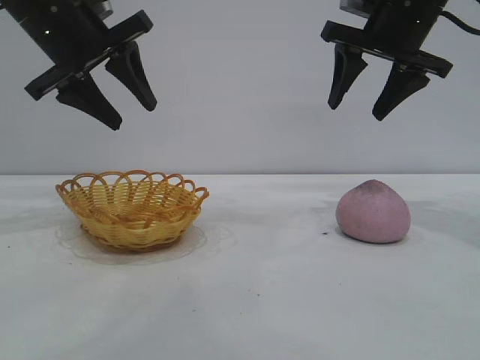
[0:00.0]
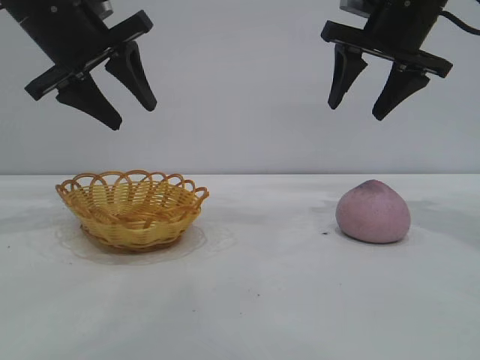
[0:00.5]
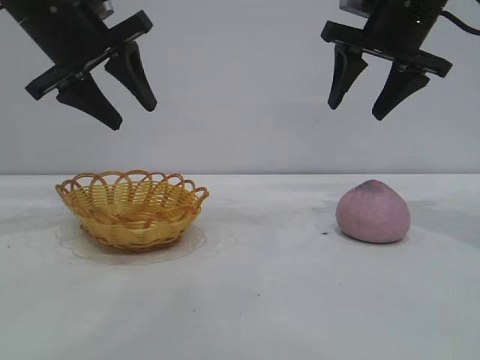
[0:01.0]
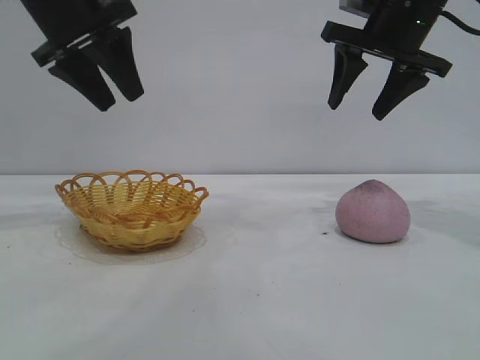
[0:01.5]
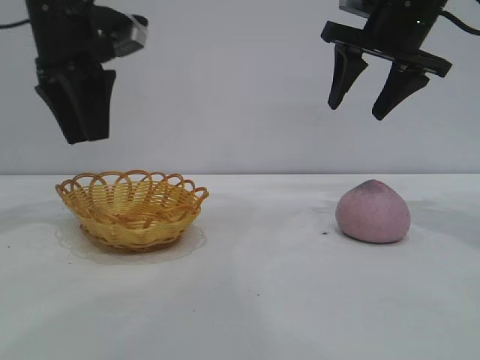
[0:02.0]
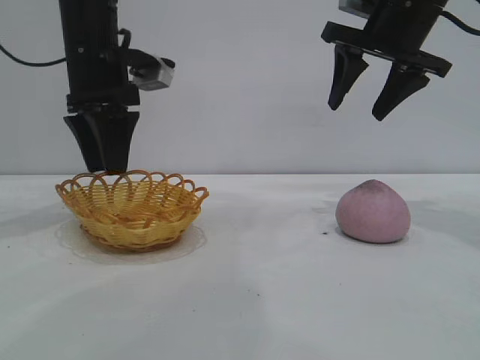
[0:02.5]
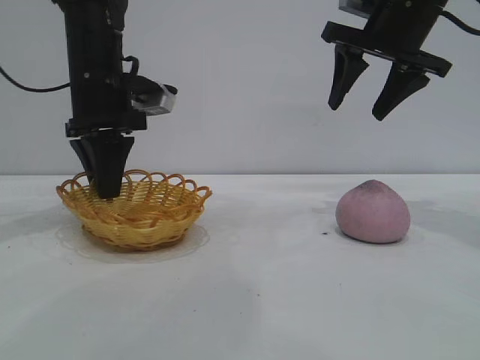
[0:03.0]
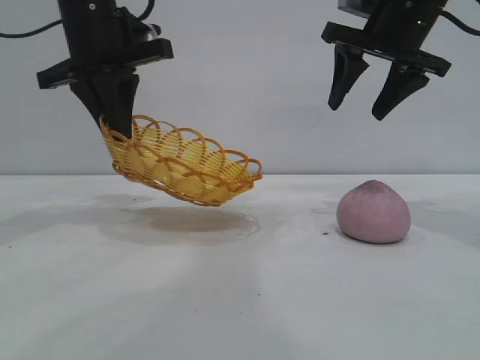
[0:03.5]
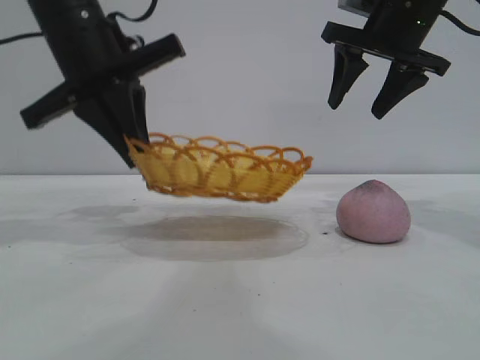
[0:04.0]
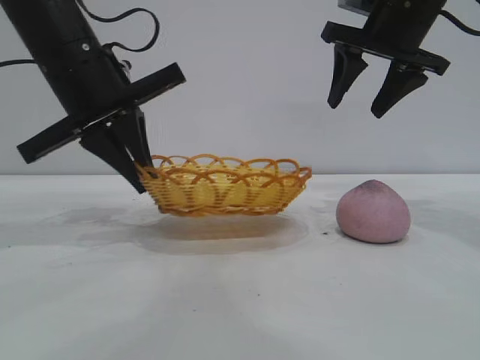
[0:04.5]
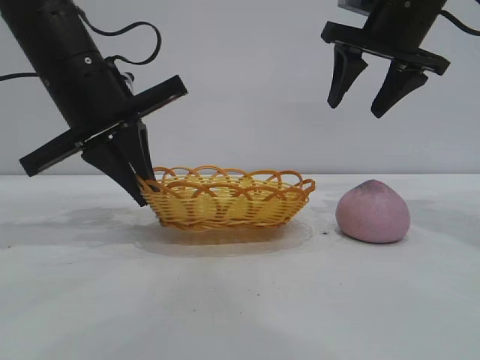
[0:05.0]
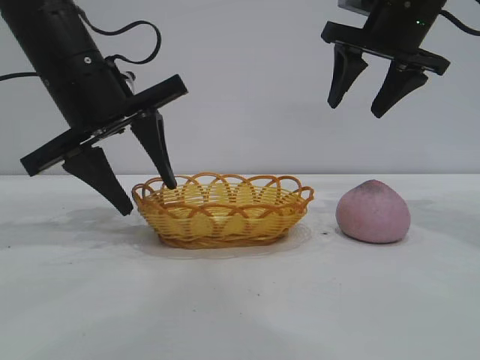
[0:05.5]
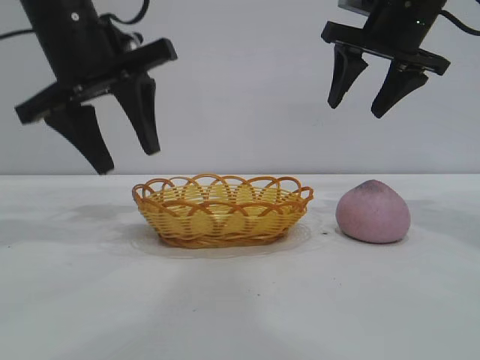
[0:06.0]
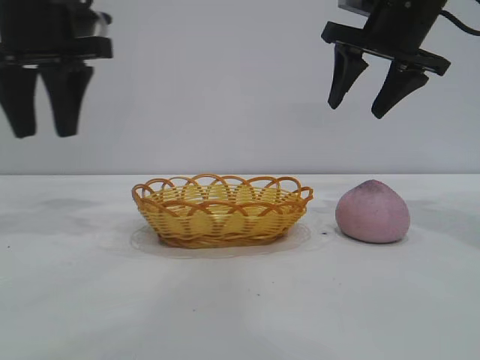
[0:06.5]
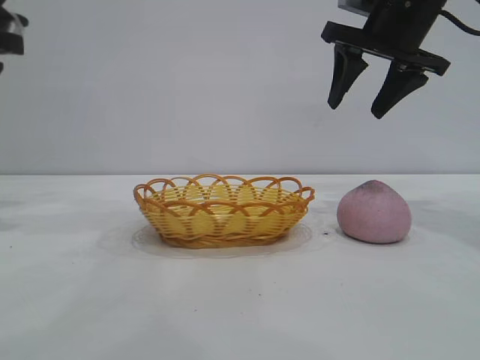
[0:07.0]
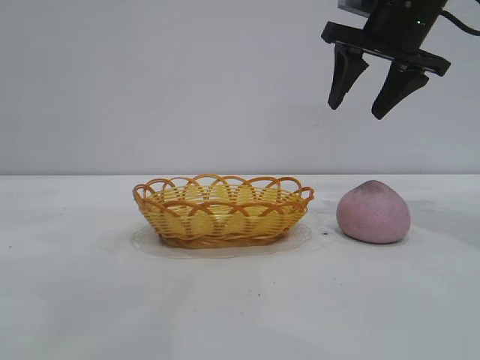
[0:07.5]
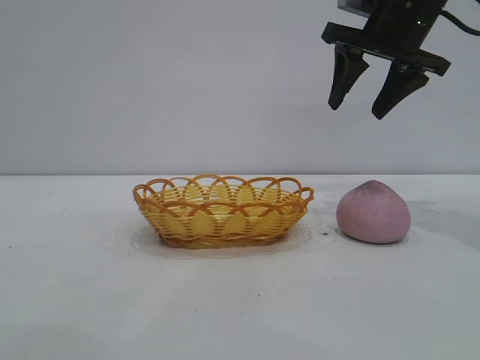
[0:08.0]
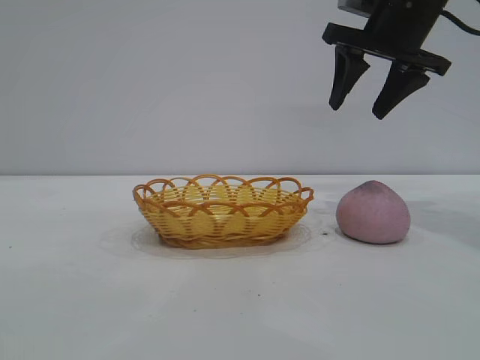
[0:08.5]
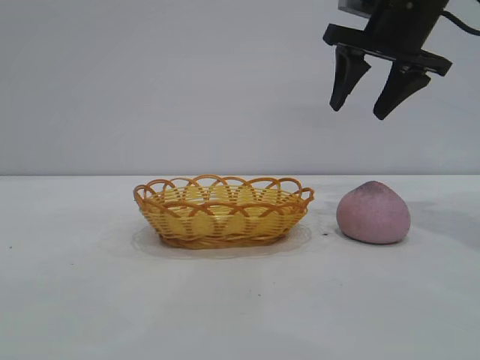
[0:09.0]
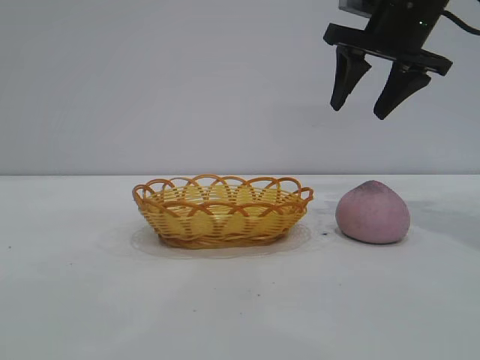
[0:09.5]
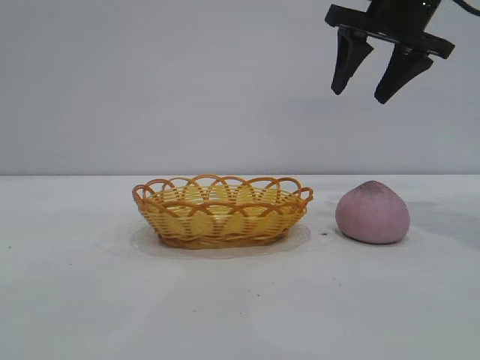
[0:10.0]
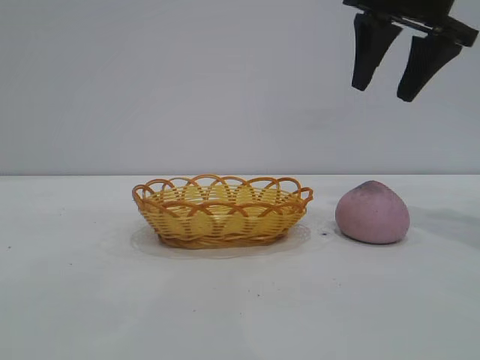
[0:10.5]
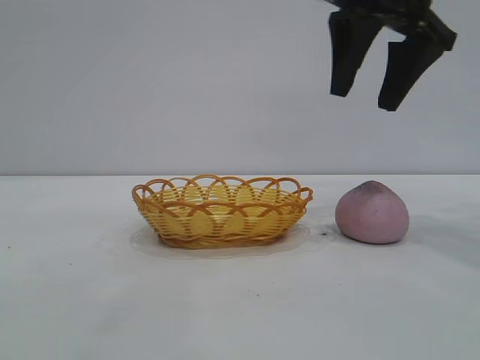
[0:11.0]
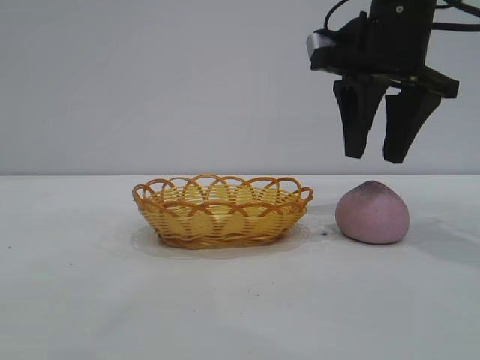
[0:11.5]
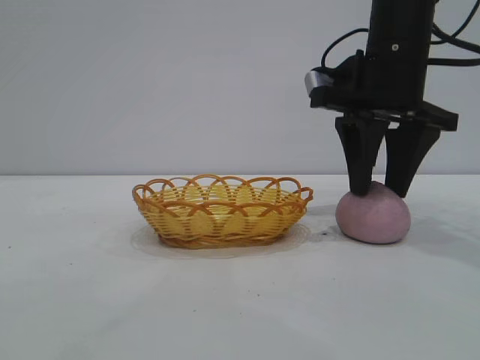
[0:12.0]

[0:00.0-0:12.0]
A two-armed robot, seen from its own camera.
Task of the whole recording: pick up the peach and put it into the basket.
Step, 0:00.0 to 0:06.0: Move the basket to the center of view.

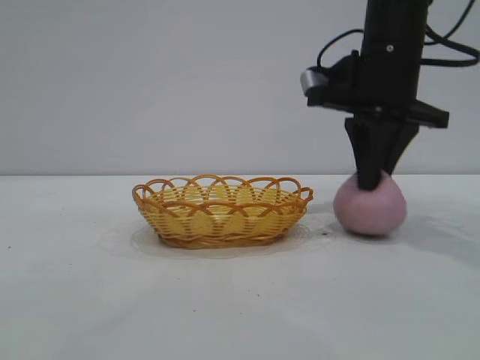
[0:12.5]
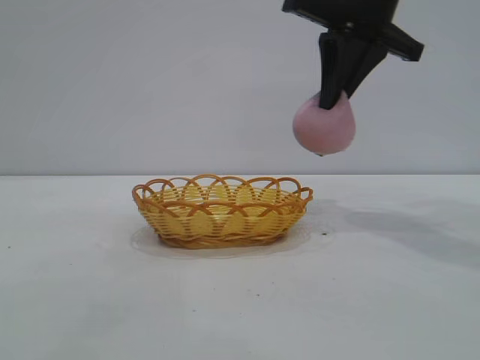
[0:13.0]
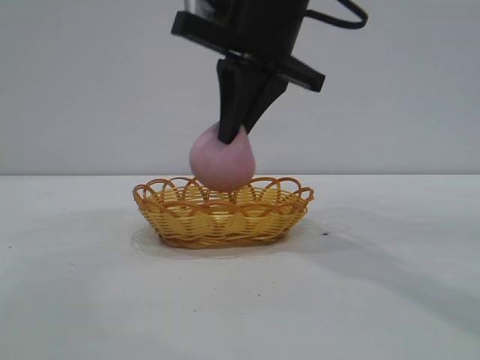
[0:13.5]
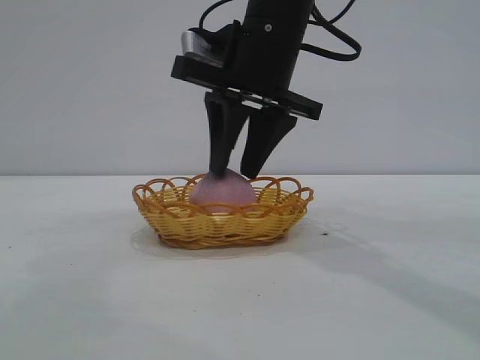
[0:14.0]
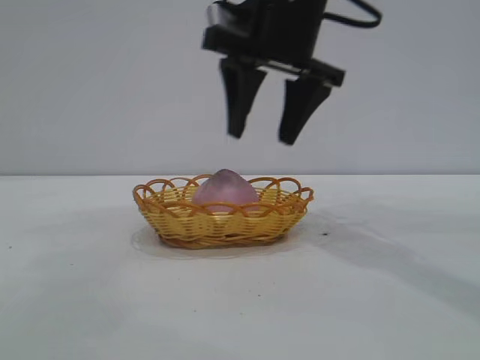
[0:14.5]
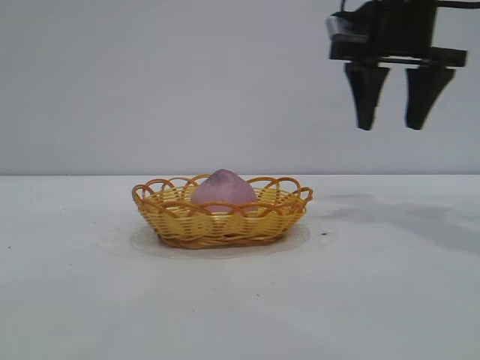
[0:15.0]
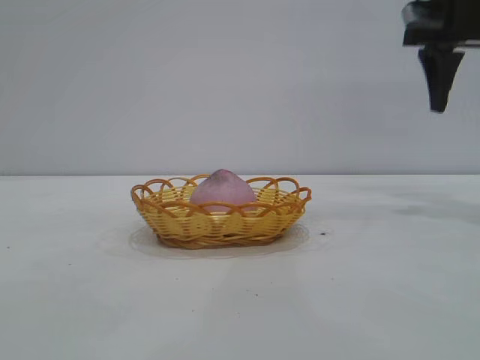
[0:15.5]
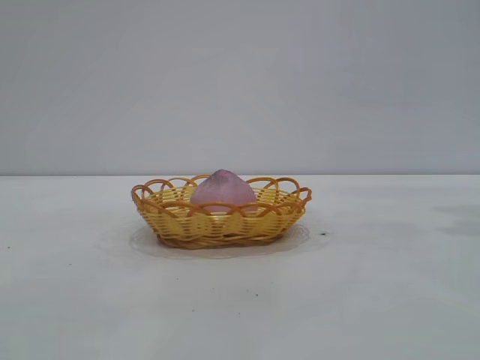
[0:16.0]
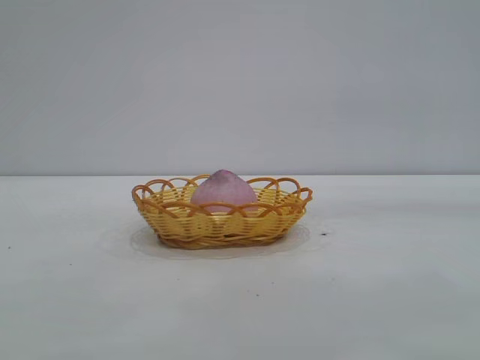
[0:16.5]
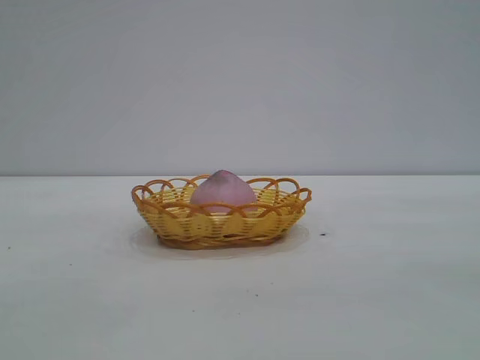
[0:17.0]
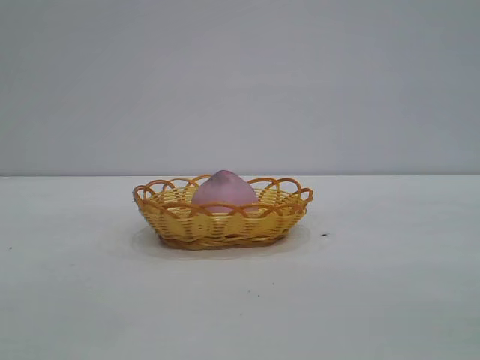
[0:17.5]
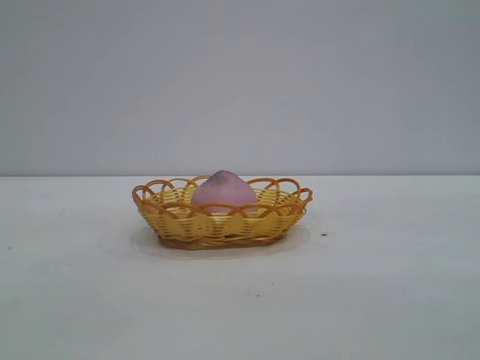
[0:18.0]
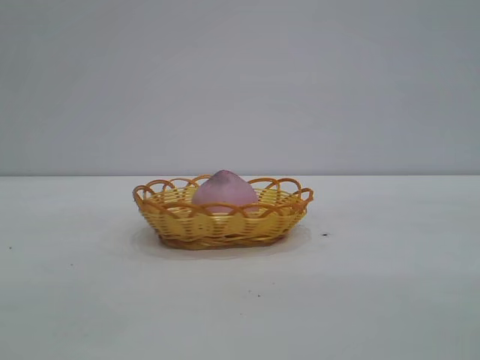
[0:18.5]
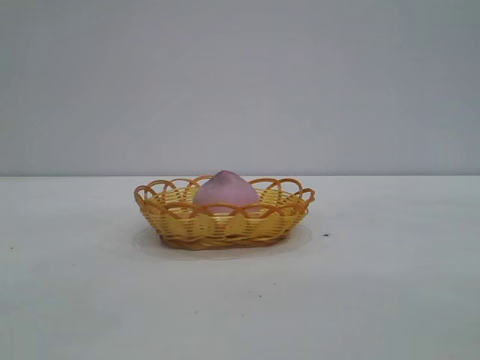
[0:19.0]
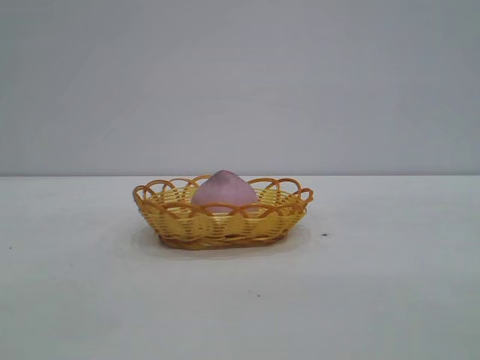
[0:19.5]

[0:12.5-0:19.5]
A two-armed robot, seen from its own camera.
Task of the whole recording: pick up the peach and put it into the basket.
Step, 0:13.0 to 0:14.5: place the peach into the basket.

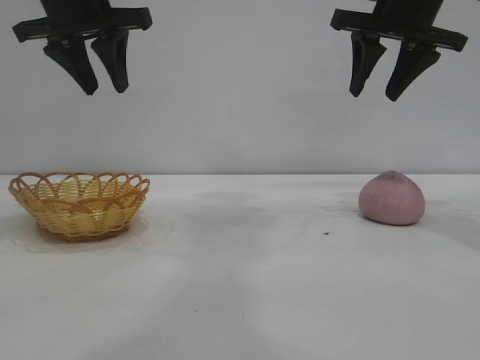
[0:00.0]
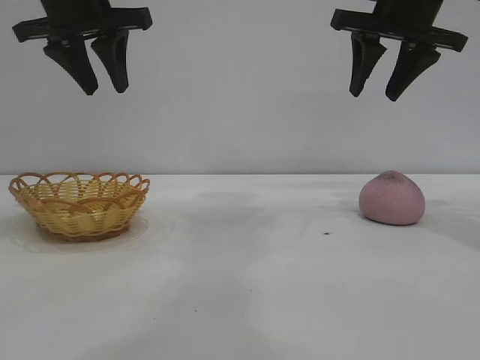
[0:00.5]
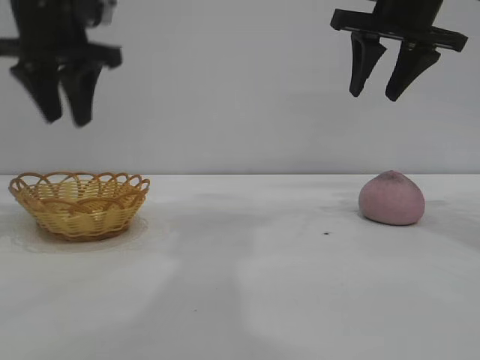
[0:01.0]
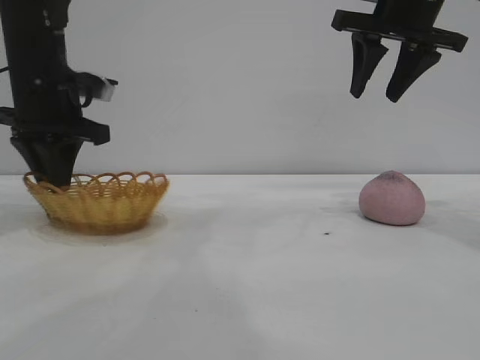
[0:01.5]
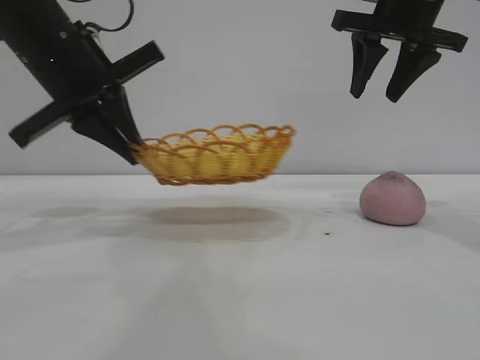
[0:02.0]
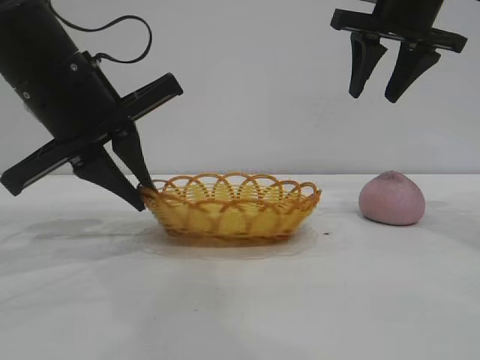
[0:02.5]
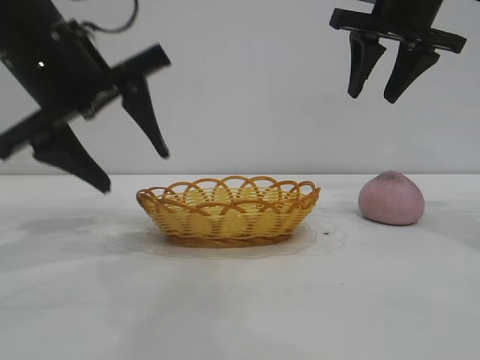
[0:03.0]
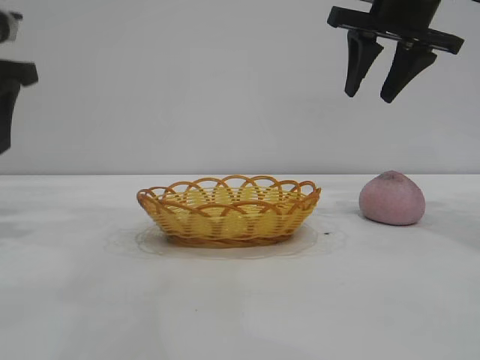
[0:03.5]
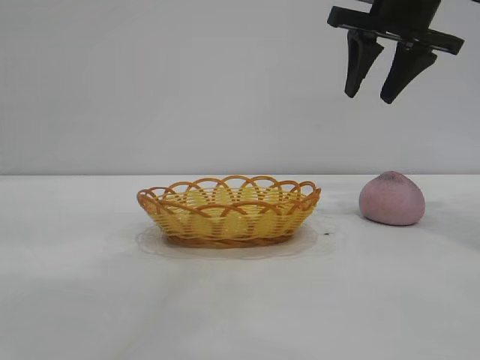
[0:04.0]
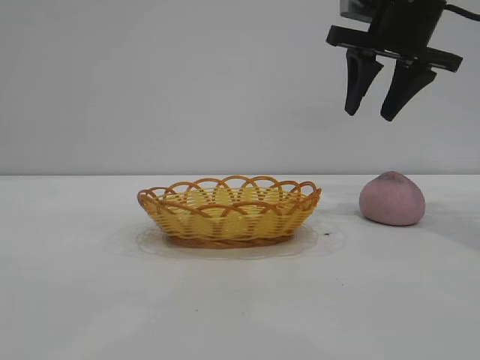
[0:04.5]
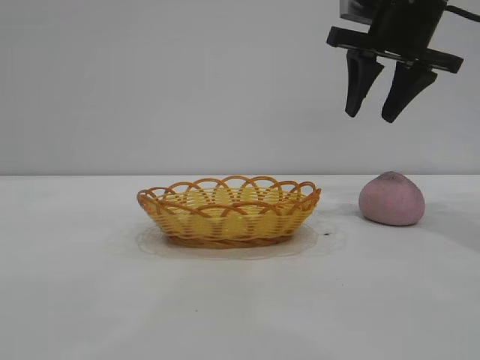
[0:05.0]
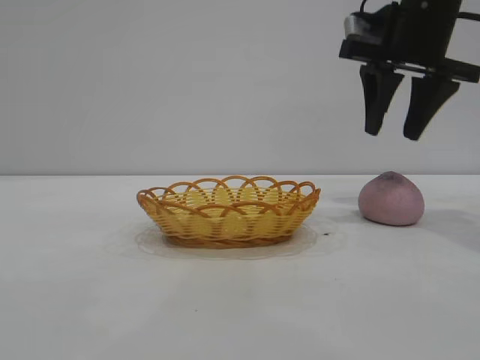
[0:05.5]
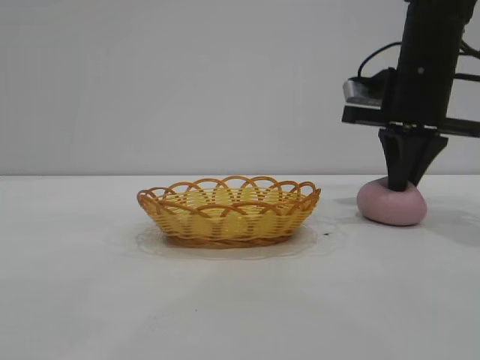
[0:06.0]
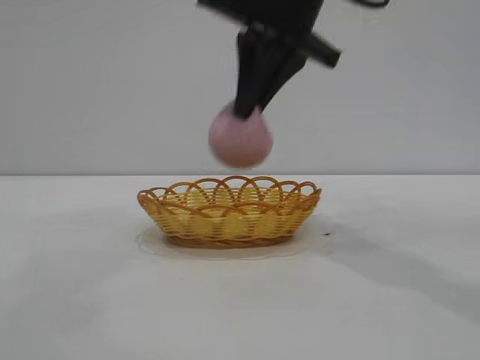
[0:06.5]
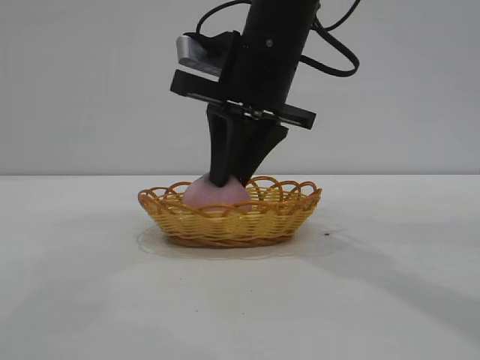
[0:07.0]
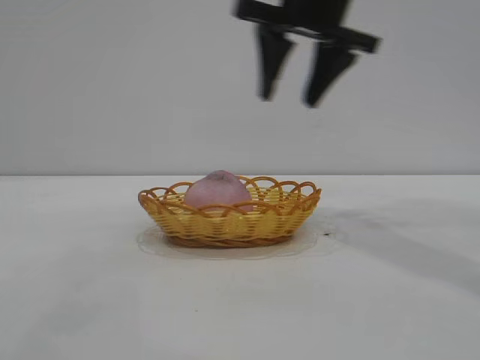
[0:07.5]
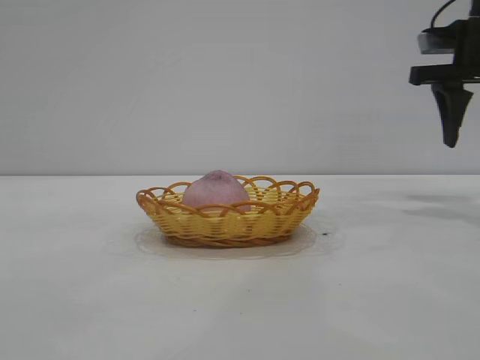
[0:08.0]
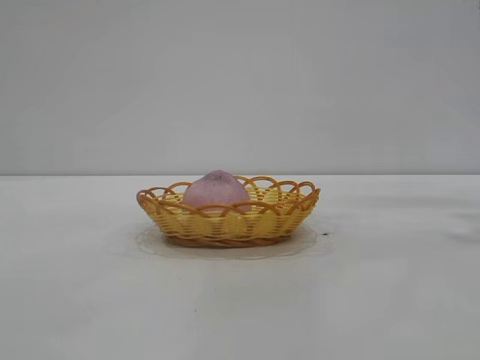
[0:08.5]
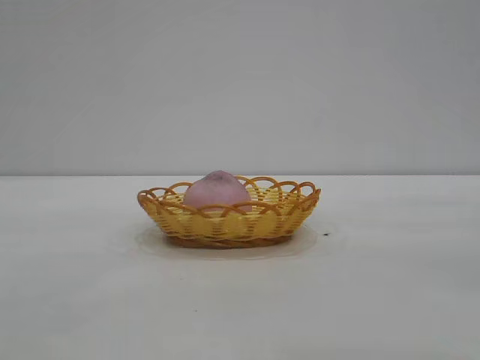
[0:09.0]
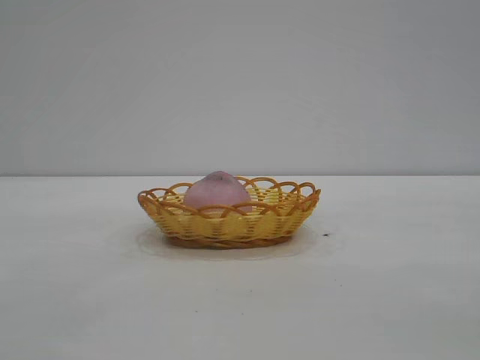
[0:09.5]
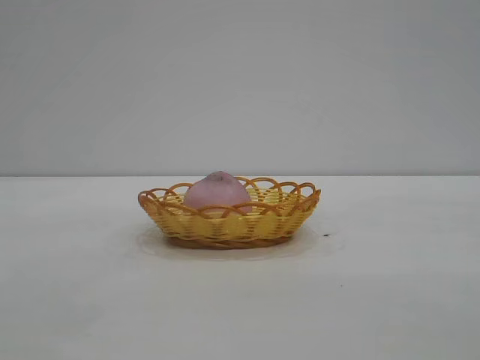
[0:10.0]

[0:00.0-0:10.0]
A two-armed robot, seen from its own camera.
Task of the whole recording: pick up the peach and put it into the basket.
Step, 0:00.0 to 0:03.0: Move the basket to the center of view.
Step, 0:03.5 to 0:06.0: Pick up the peach.
Step, 0:06.5 to 0:07.0: place the peach into the basket.
